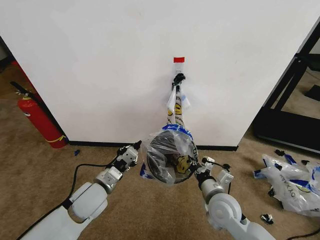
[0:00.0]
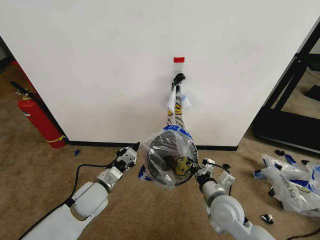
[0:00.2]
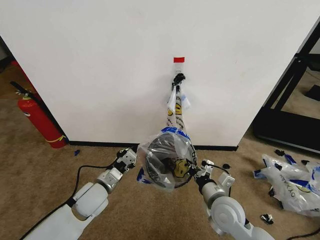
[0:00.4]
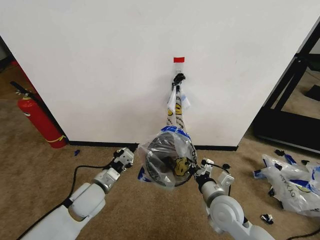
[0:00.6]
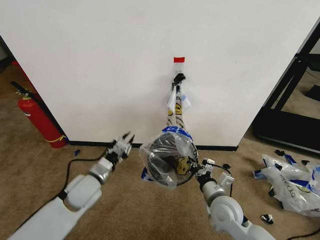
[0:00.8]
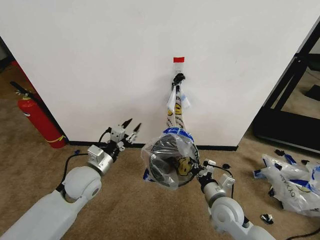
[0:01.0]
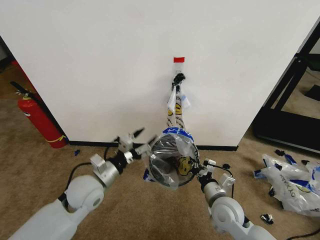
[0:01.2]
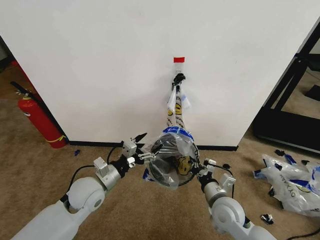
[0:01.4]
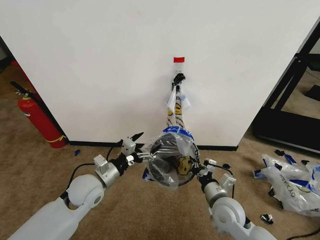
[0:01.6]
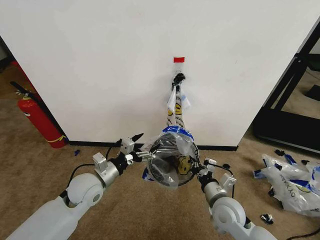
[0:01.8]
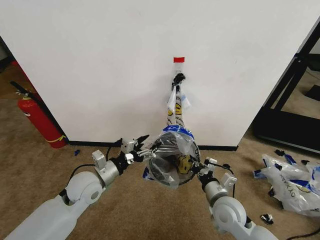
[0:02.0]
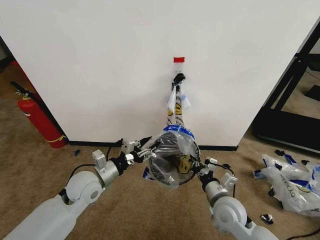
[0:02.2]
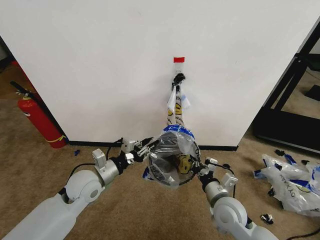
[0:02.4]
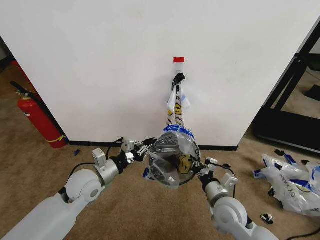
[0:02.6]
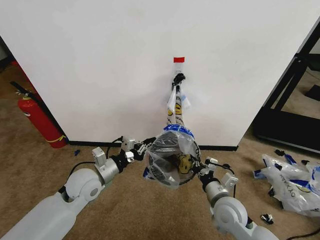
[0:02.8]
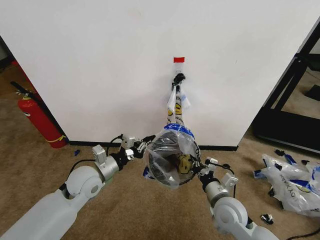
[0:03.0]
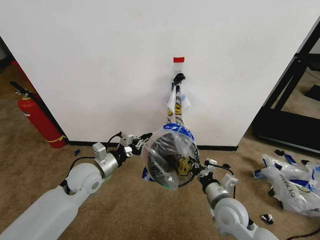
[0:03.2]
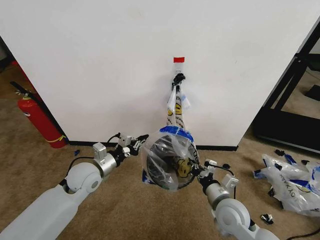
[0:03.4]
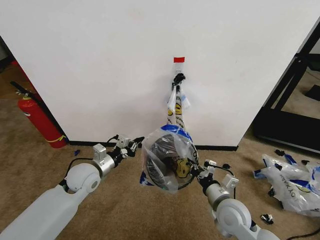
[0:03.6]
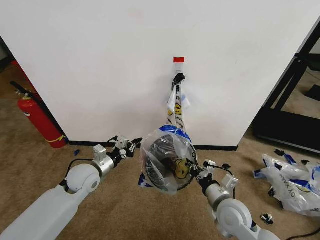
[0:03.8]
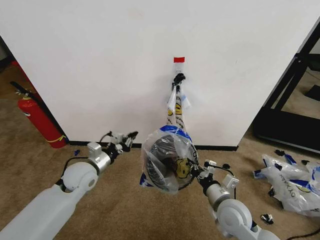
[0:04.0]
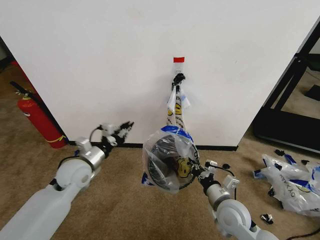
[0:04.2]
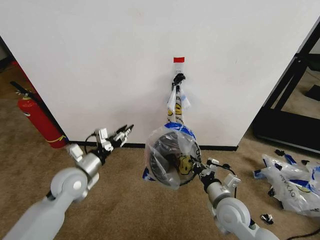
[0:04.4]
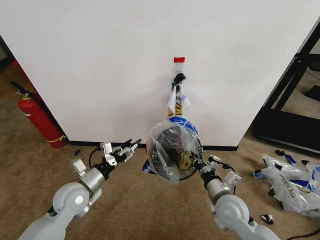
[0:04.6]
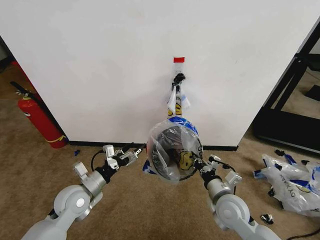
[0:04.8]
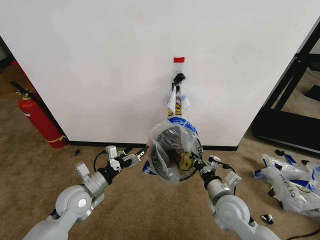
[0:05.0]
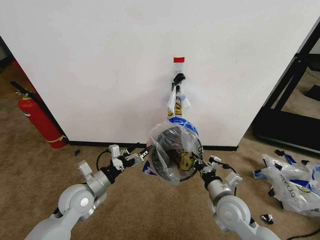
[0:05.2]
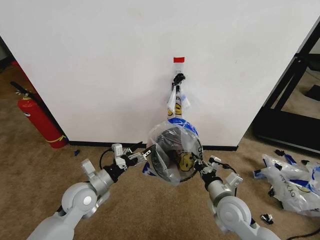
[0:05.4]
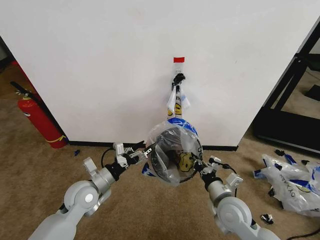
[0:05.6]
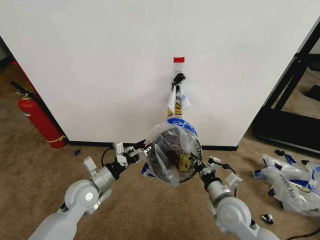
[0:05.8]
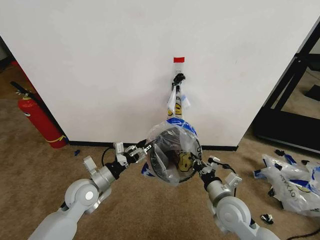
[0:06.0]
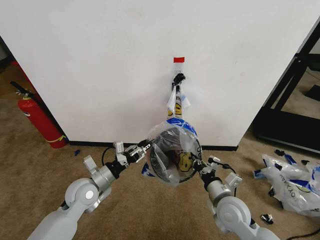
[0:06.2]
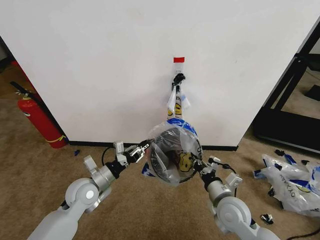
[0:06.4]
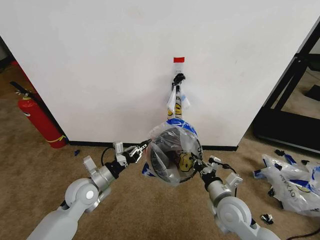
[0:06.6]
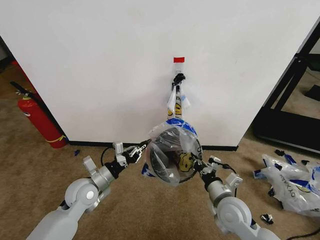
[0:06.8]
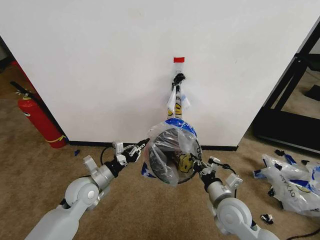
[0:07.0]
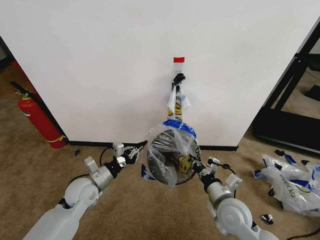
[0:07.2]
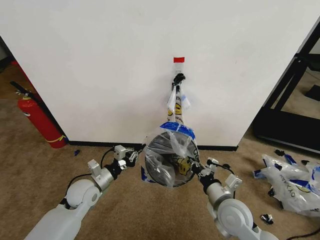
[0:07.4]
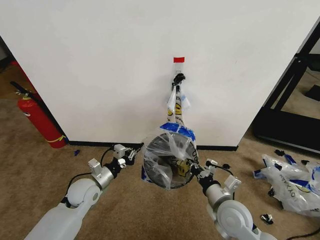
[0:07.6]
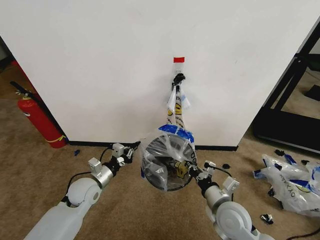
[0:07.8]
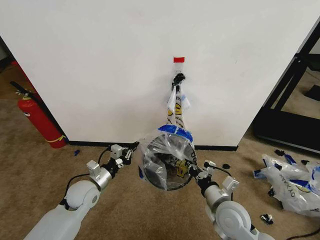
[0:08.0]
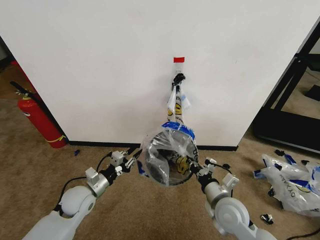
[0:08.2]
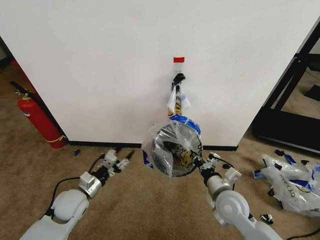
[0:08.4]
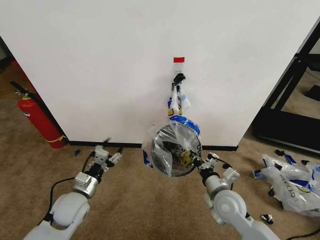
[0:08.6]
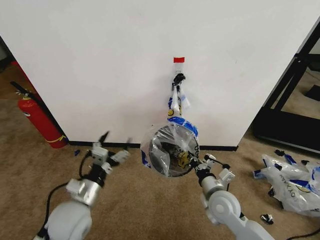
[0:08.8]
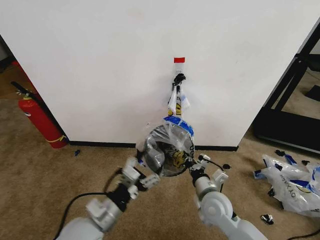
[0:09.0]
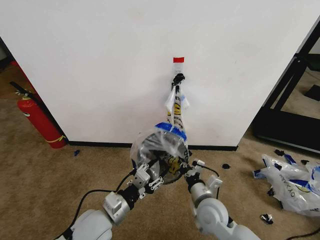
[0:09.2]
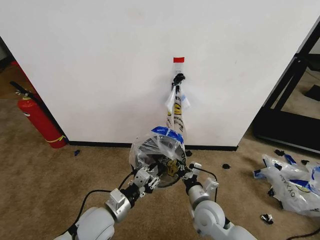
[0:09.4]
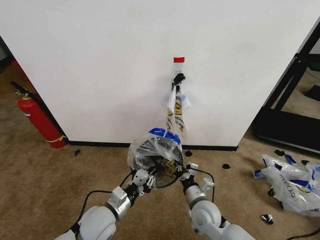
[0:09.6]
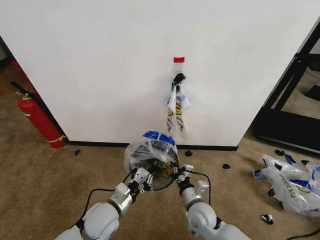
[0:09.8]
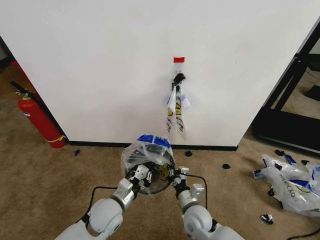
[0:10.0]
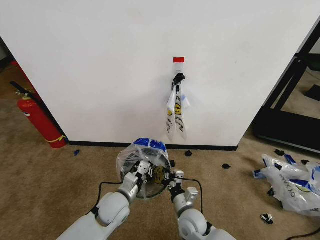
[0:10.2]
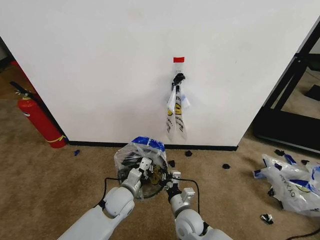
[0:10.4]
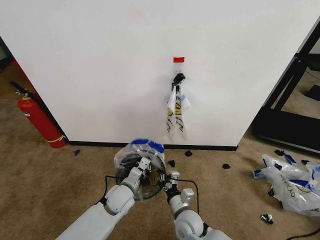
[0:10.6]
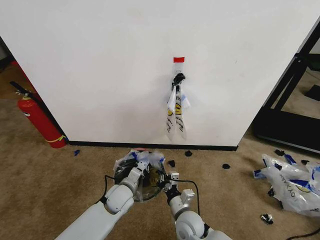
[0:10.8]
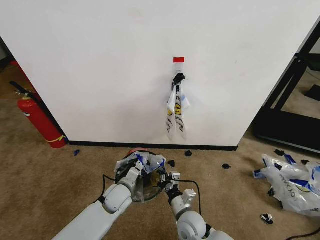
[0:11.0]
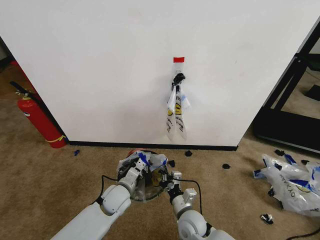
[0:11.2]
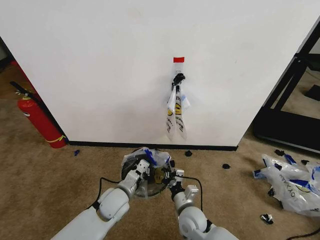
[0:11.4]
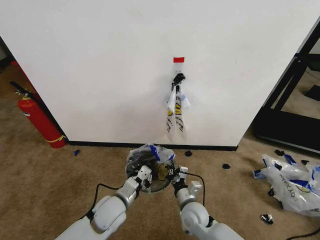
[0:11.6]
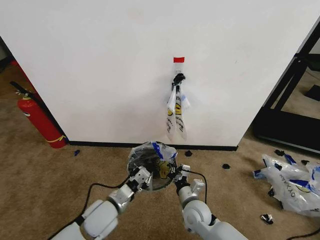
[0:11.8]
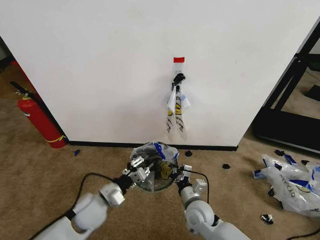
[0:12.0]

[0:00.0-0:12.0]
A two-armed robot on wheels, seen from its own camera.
Task of the whole recording: Pick up the garbage bag from the wall and place it over the trash bin.
0:00.0 to 0:01.6: The left gripper opens.
0:01.6 to 0:03.0: The left gripper closes.
0:03.0 to 0:04.4: The left gripper opens up.
0:04.4 to 0:06.0: The left gripper changes place by about 5 cm, and opens and closes again.
0:06.0 to 0:07.6: The left gripper closes.
0:07.6 to 0:09.0: The right gripper changes place by some 5 cm, while the left gripper heads backward, upward and to the right, covering some 20 cm, and opens up.
0:09.0 to 0:10.4: The left gripper is displaced forward, downward and to the right by approximately 15 cm, and closes, while the right gripper shifts approximately 15 cm downward and to the left.
0:10.4 to 0:12.0: The left gripper goes roughly 10 cm to the left.

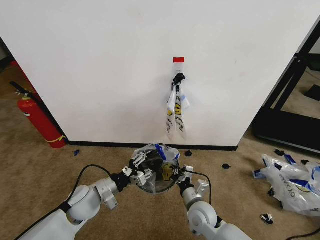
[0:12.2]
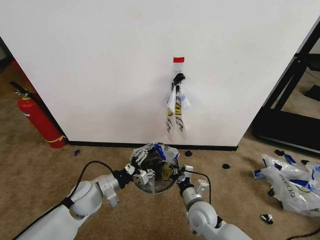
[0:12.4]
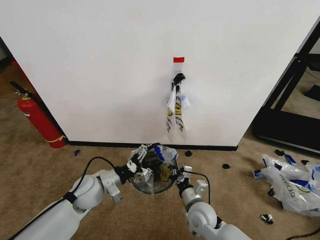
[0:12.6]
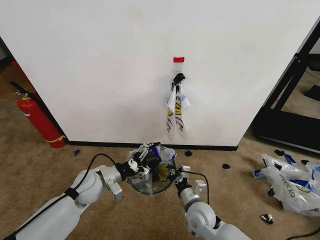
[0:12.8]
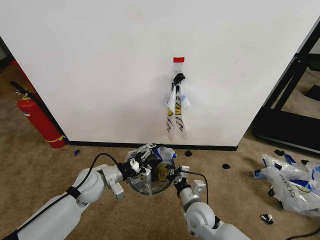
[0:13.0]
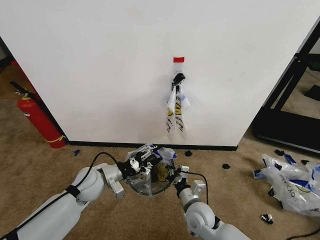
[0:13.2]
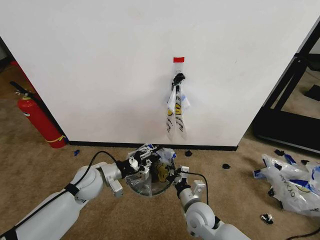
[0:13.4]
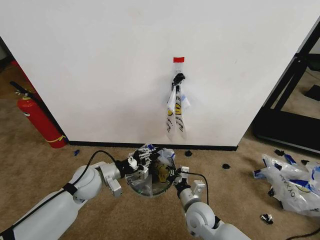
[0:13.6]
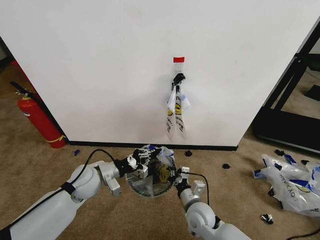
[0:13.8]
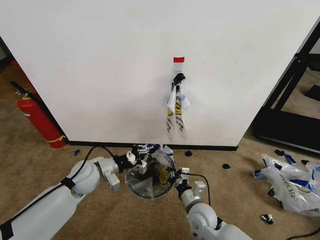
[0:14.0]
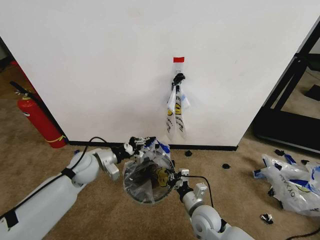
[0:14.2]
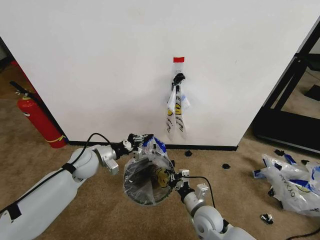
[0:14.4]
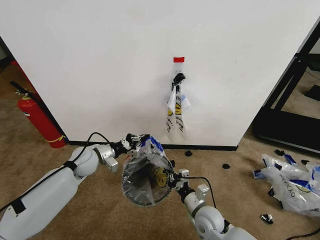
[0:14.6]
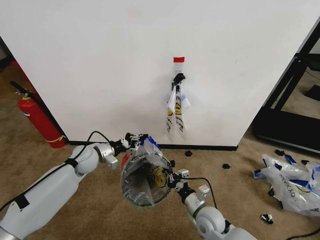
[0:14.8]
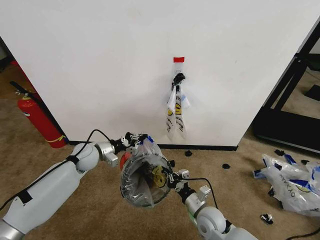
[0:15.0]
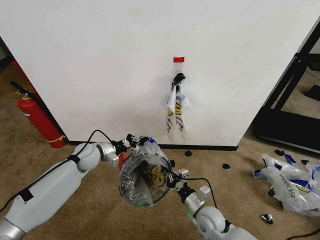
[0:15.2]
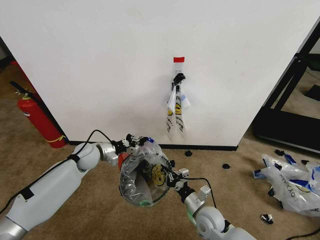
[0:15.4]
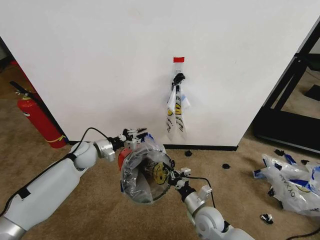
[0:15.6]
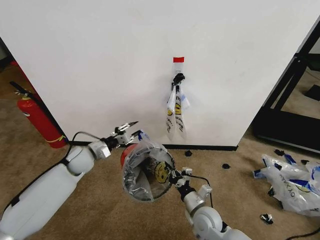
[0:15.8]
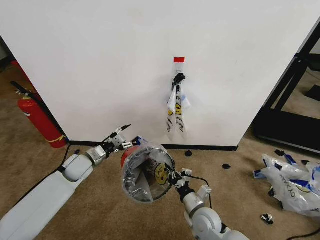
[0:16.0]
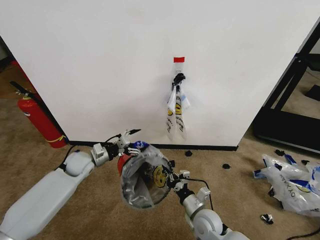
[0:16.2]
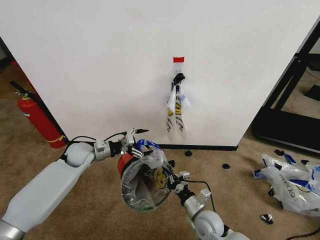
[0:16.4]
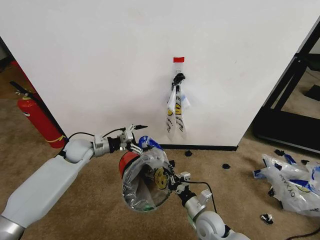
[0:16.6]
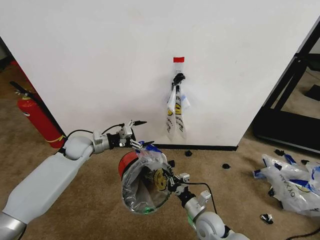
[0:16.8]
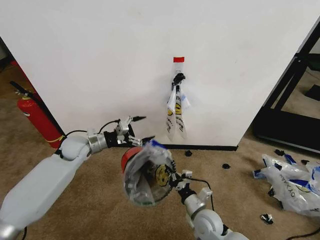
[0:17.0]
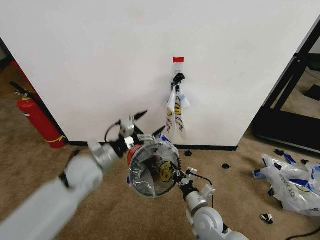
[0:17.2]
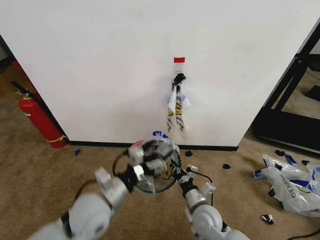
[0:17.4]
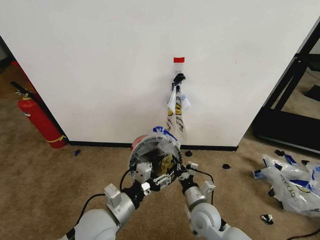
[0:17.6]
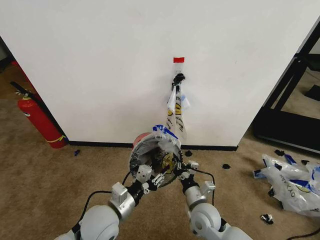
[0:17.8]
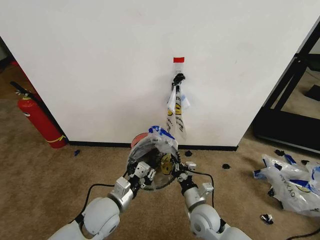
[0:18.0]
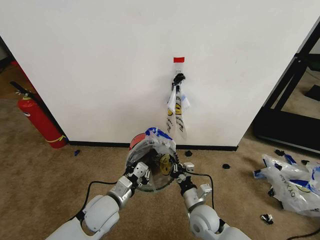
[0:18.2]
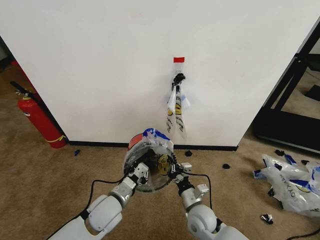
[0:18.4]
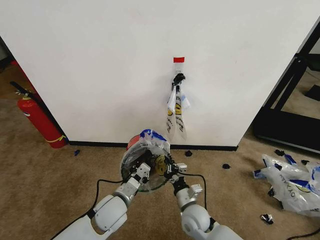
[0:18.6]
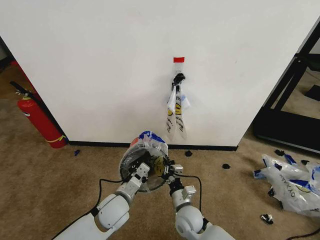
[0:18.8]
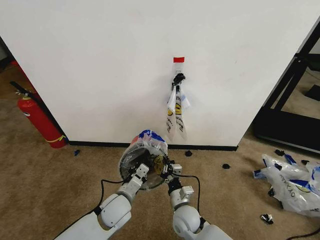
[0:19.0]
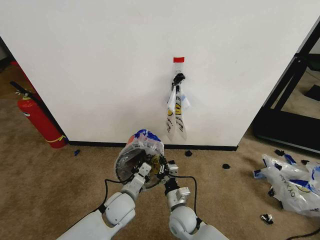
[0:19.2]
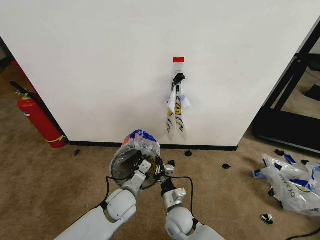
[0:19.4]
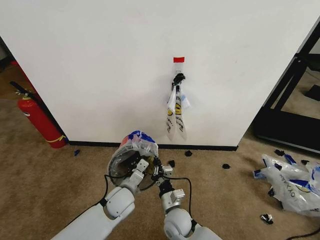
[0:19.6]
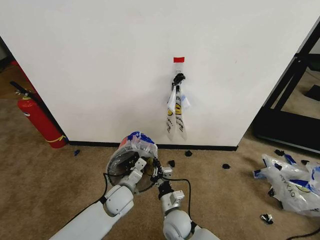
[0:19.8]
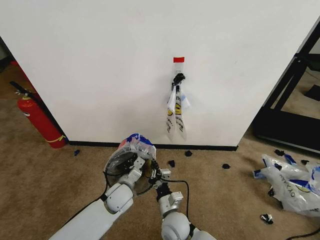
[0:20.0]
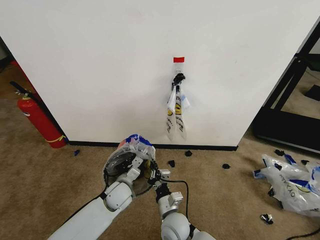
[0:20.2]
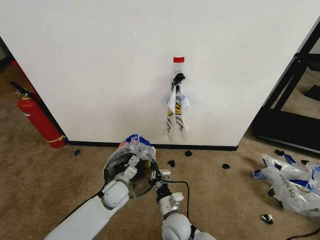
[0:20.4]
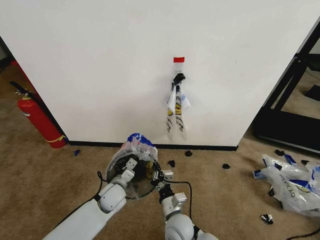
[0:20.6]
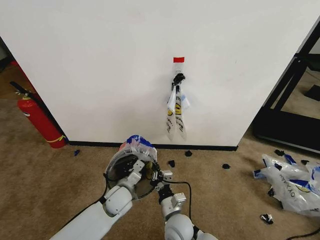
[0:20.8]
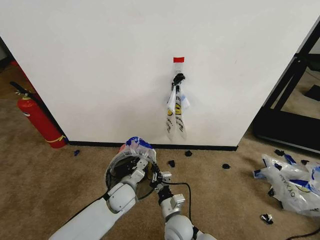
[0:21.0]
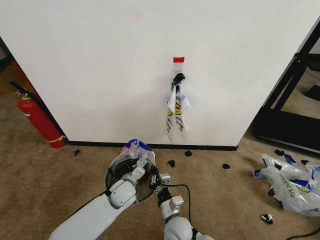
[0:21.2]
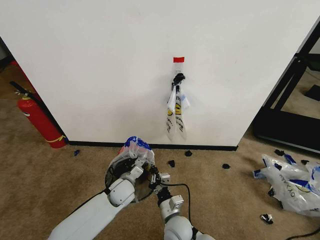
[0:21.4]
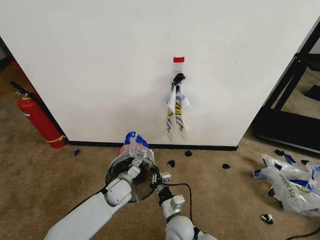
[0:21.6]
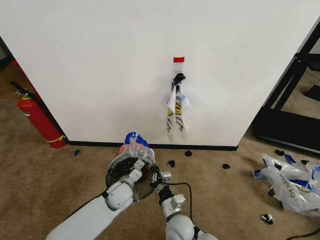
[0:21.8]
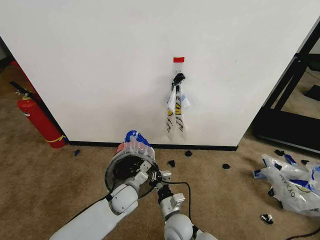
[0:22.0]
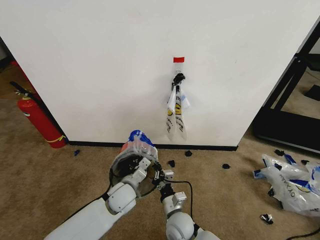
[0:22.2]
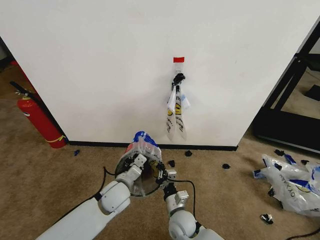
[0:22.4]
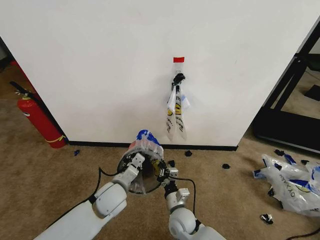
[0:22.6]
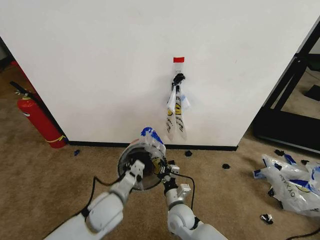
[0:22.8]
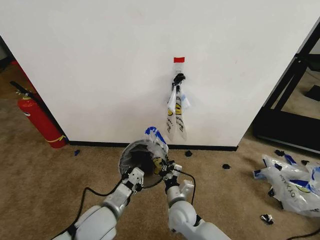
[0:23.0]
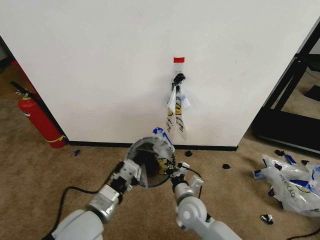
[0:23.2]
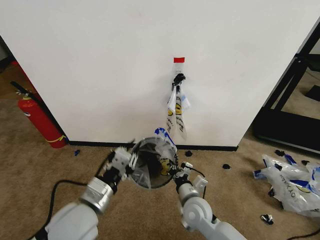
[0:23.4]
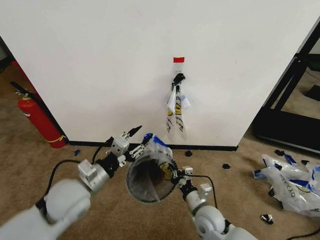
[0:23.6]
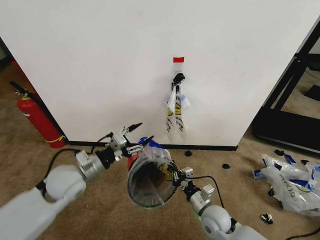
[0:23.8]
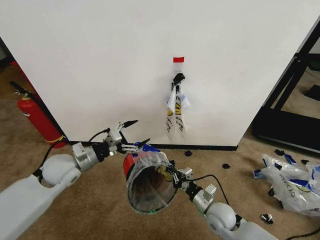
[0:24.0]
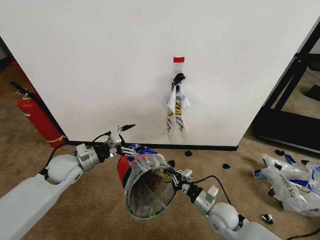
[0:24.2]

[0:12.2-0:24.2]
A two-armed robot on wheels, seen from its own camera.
Task of the whole recording: Pick up the garbage bag from the wall and place it over the trash bin.
0:12.2 to 0:13.8: The left gripper ends up approximately 5 cm from where it was, and closes.
0:13.8 to 0:15.2: The left gripper heads forward, covering about 10 cm.
0:15.2 to 0:16.6: The left gripper opens up.
0:16.6 to 0:18.2: The left gripper goes some 25 cm backward and to the right, and closes up.
0:18.2 to 0:19.8: The left gripper moves downward and forward, about 10 cm. The right gripper is displaced to the left by some 10 cm.
0:19.8 to 0:21.2: The grippers make only small movements.
0:21.2 to 0:22.6: The left gripper moves upward, about 5 cm.
0:22.6 to 0:24.2: The left gripper moves to the left, forward and upward, roughly 20 cm, and opens. Meanwhile the right gripper moves to the right, roughly 15 cm.
